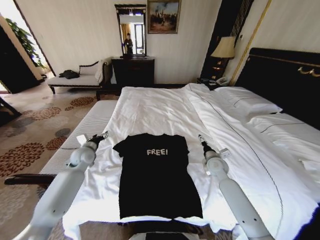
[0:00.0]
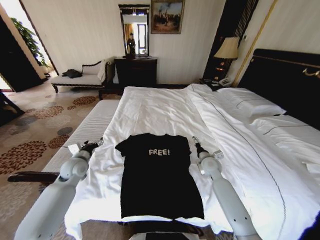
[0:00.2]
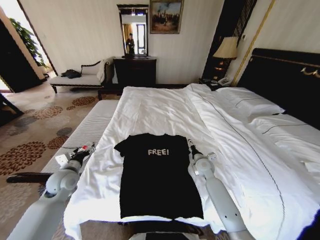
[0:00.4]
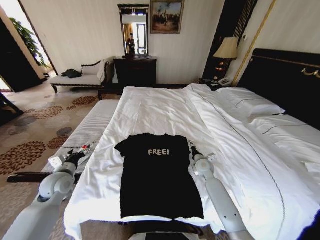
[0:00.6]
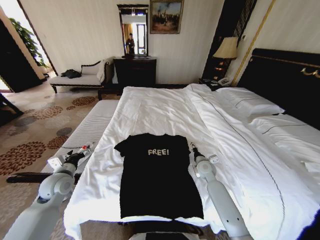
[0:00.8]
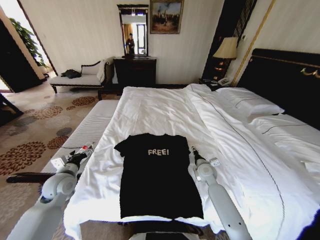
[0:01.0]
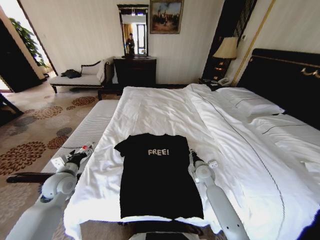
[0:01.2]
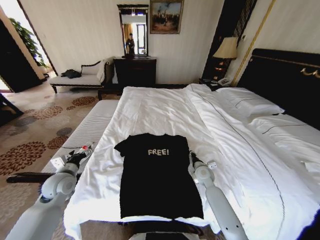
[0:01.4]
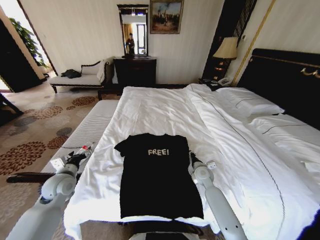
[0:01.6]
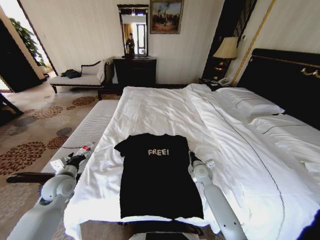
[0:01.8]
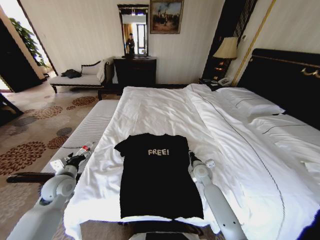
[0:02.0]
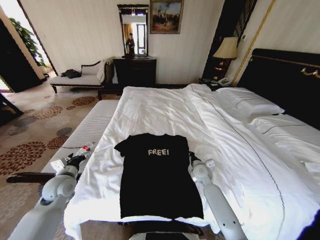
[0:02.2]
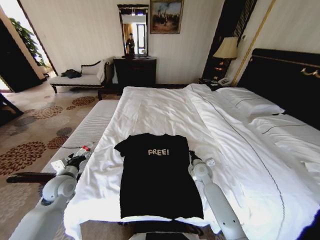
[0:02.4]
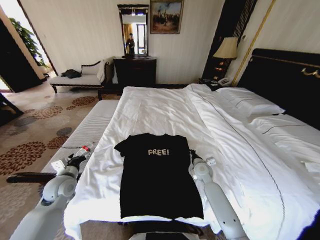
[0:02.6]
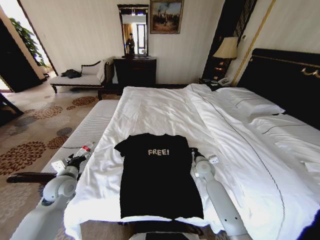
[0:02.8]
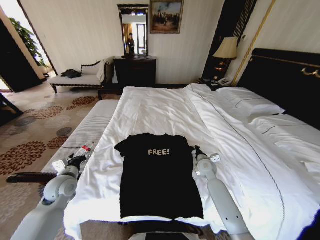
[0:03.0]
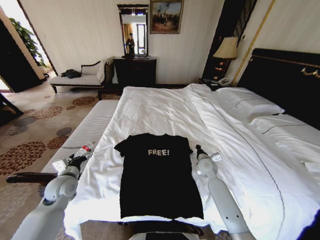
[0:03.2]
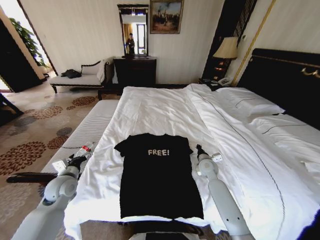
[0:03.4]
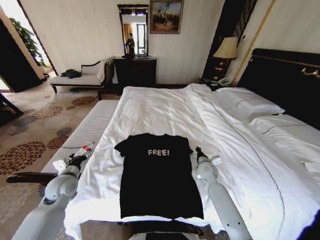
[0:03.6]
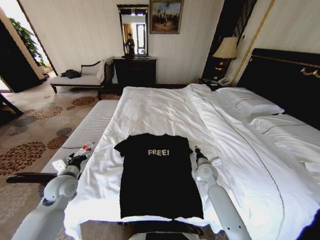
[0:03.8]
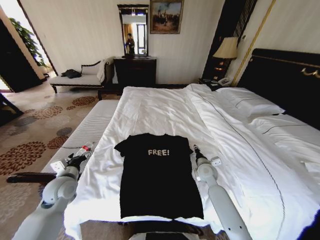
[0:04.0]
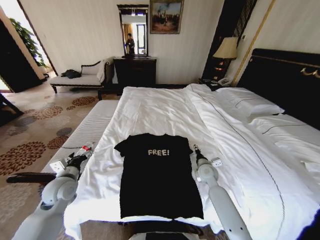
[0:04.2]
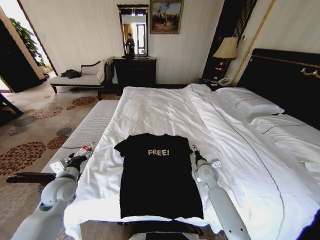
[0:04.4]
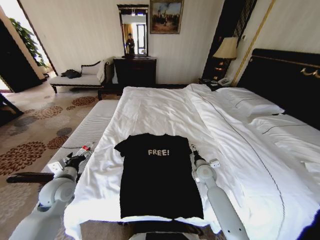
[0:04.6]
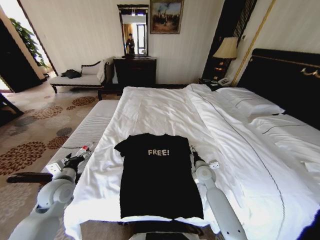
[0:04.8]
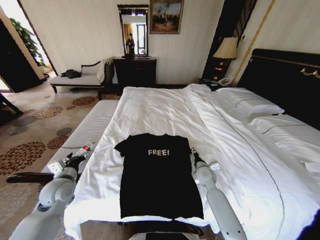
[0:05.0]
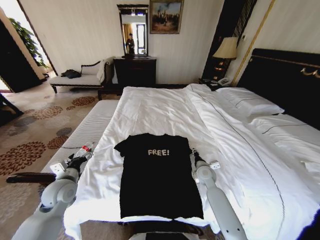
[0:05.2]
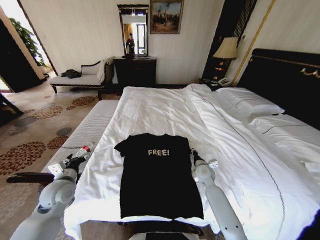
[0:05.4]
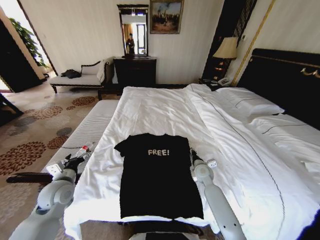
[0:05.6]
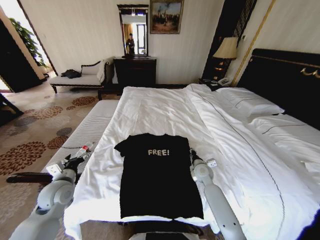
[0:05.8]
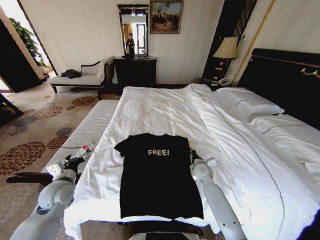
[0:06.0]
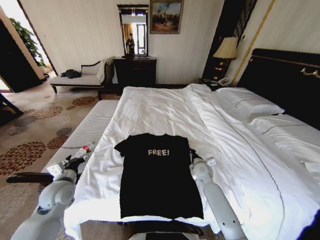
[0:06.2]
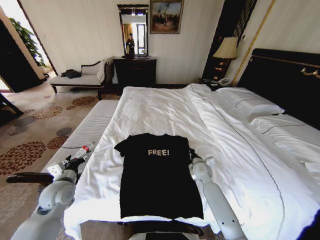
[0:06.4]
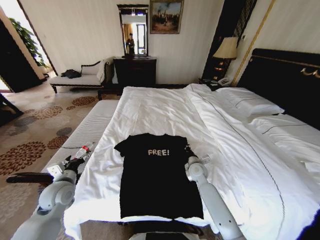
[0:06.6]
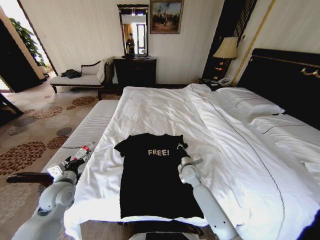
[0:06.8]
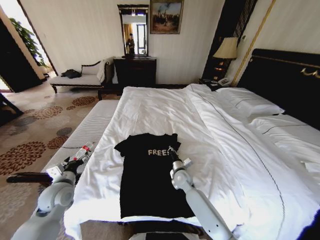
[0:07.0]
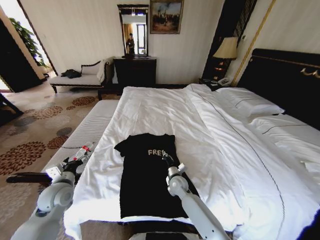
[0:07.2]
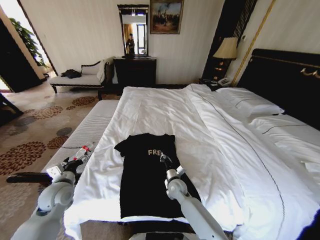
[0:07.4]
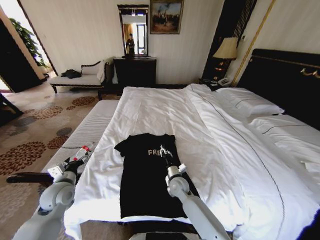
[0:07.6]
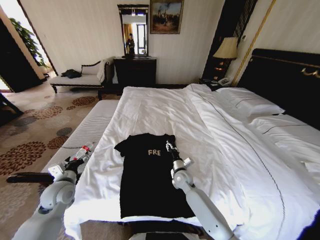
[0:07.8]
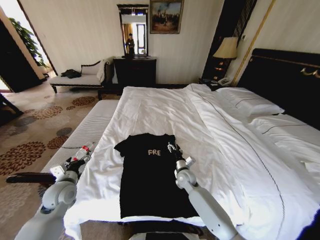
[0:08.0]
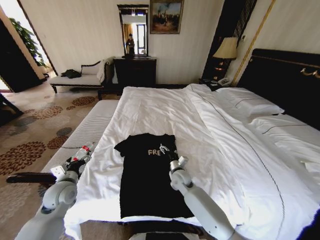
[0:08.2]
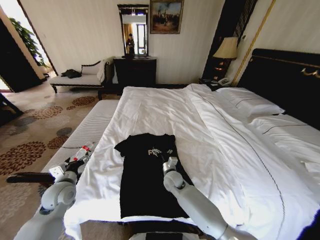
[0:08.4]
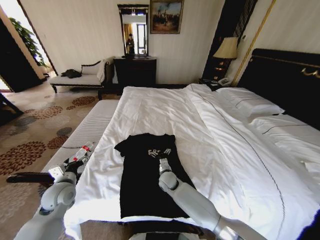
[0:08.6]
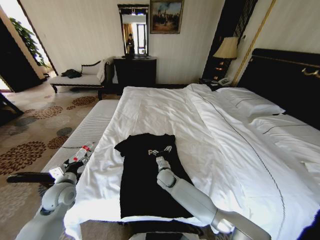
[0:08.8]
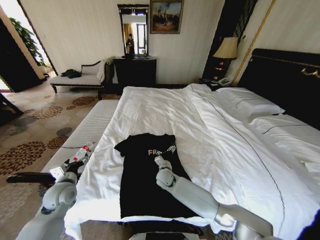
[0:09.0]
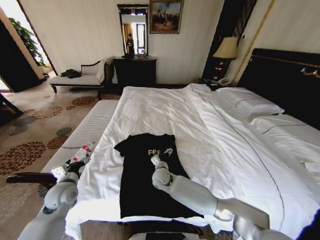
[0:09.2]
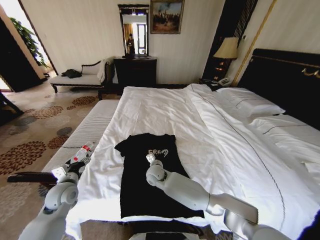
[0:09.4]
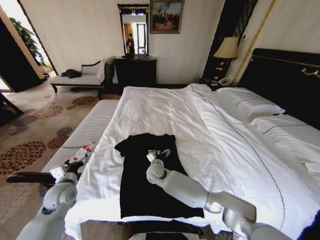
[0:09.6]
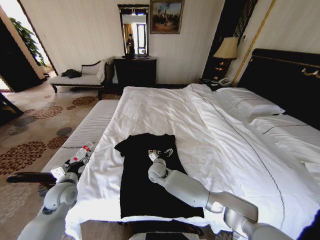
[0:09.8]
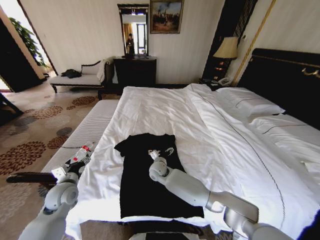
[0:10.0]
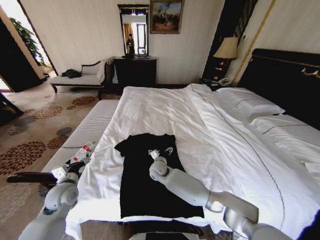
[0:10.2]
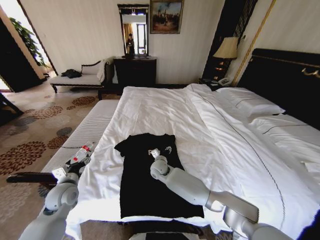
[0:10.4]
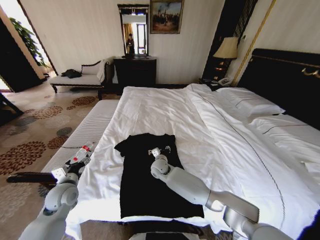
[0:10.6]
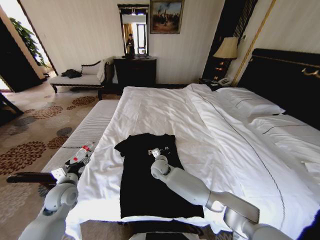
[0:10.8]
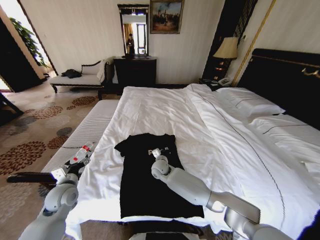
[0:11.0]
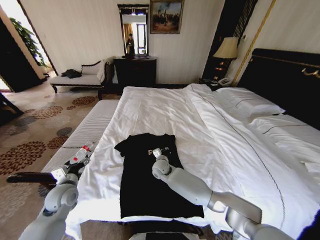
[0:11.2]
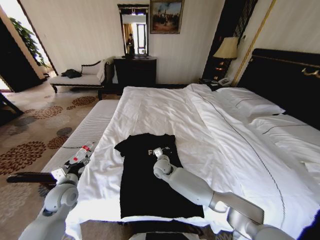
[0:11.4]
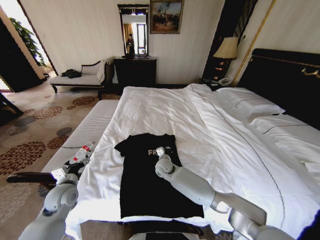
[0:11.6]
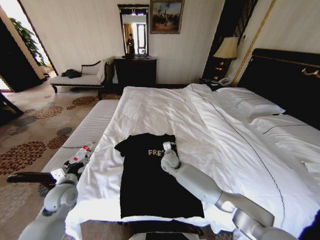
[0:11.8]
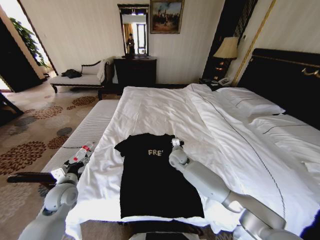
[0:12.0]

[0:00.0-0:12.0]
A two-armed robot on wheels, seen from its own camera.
Task of the whole recording: Fold the clothes on the bed.
0:00.0 to 0:01.6: The right gripper heads downward and to the left, covering approximately 10 cm, and closes. The left gripper travels backward by roughly 10 cm.
0:01.6 to 0:03.0: The right gripper closes its fingers.
0:03.0 to 0:04.4: The right gripper opens its fingers.
0:04.4 to 0:06.0: The right gripper closes up.
0:06.0 to 0:07.6: The right gripper heads to the left and backward, covering approximately 15 cm.
0:07.6 to 0:09.0: The right gripper goes approximately 5 cm to the left, and opens its fingers.
0:09.0 to 0:10.4: The right gripper moves some 5 cm.
0:10.4 to 0:12.0: The right gripper moves to the right, about 10 cm, and closes its fingers.

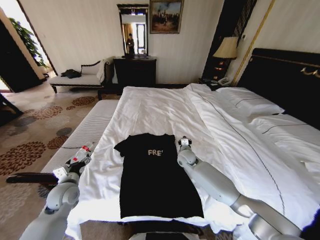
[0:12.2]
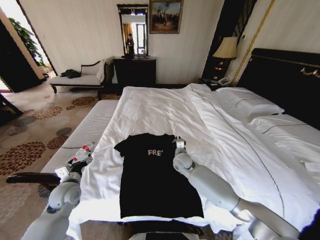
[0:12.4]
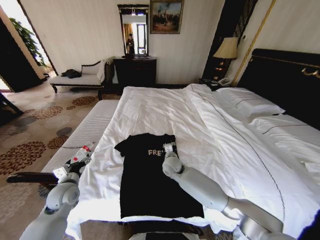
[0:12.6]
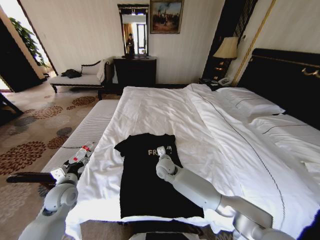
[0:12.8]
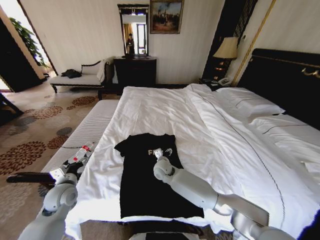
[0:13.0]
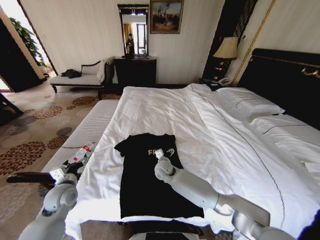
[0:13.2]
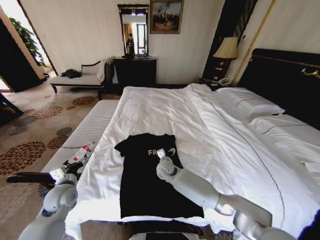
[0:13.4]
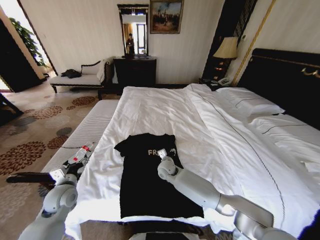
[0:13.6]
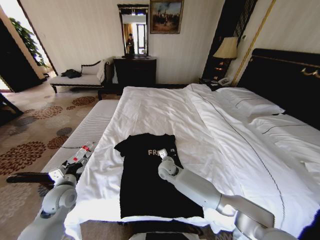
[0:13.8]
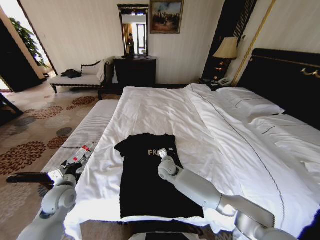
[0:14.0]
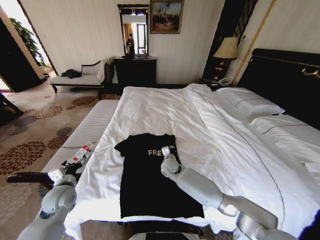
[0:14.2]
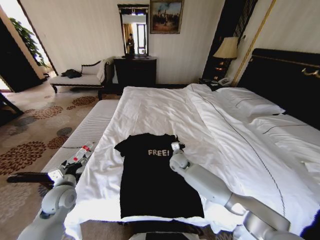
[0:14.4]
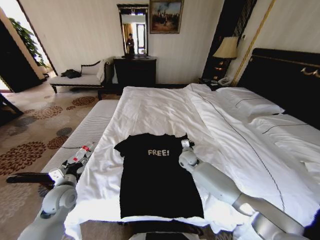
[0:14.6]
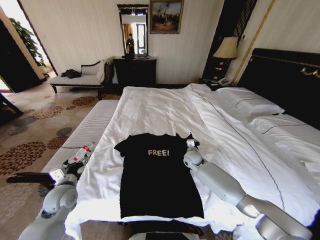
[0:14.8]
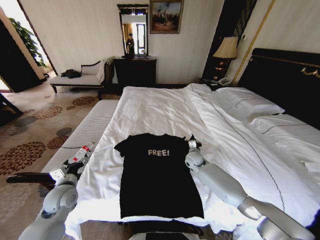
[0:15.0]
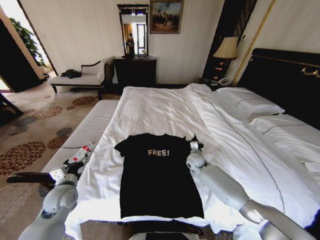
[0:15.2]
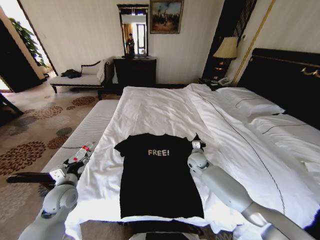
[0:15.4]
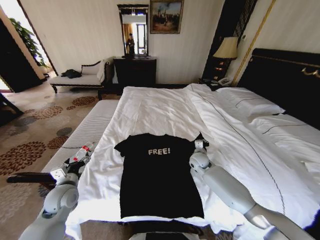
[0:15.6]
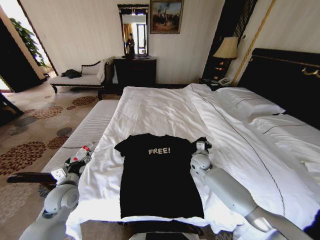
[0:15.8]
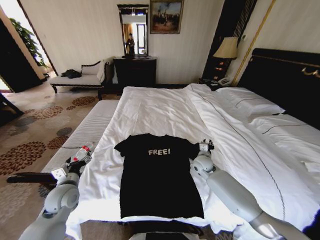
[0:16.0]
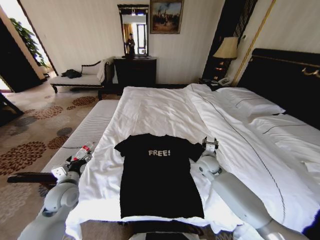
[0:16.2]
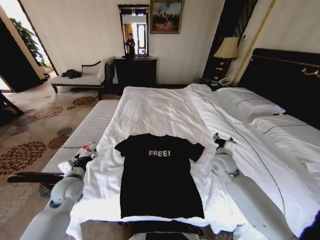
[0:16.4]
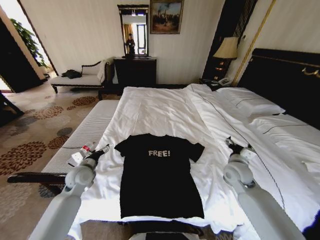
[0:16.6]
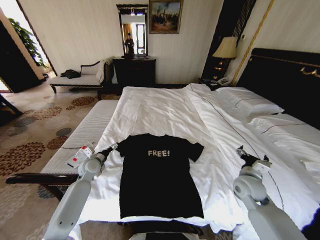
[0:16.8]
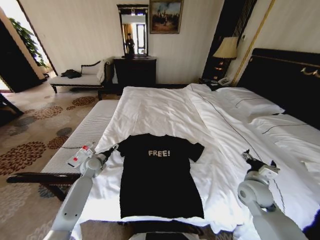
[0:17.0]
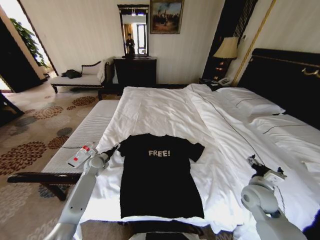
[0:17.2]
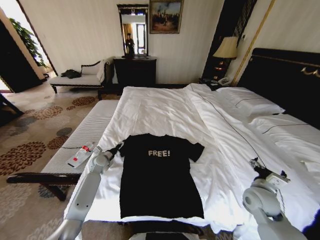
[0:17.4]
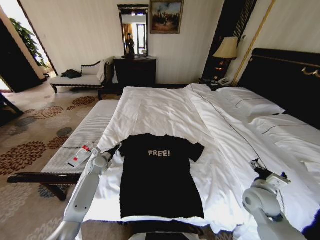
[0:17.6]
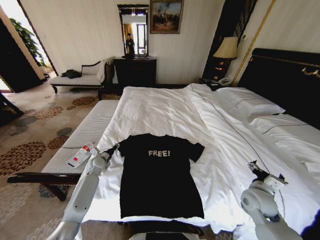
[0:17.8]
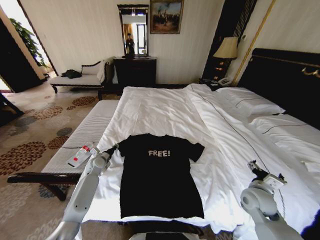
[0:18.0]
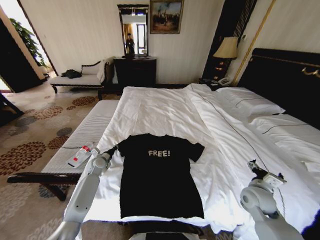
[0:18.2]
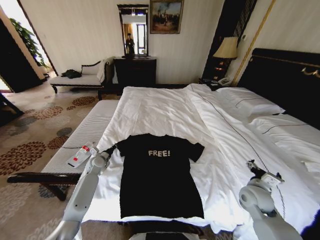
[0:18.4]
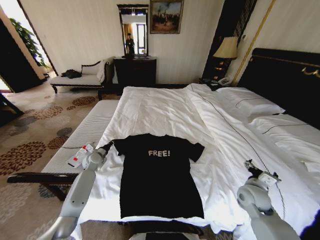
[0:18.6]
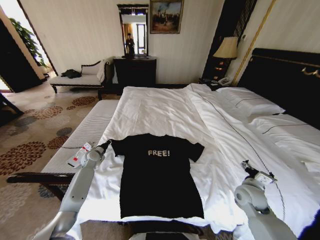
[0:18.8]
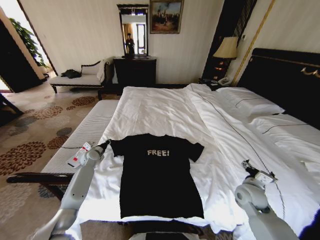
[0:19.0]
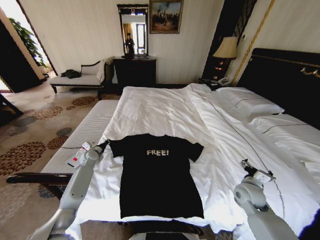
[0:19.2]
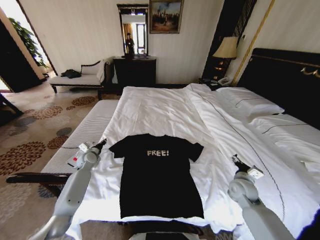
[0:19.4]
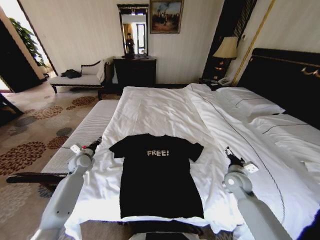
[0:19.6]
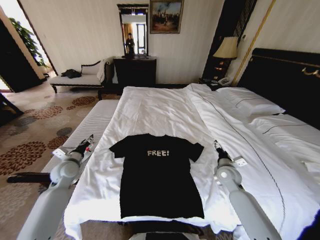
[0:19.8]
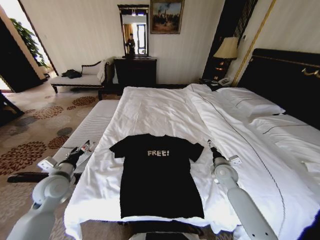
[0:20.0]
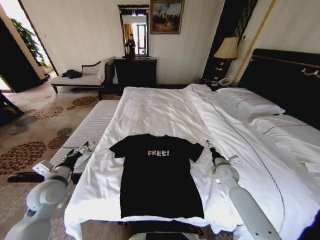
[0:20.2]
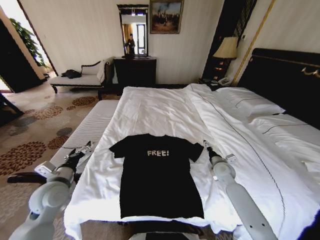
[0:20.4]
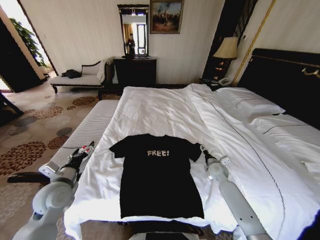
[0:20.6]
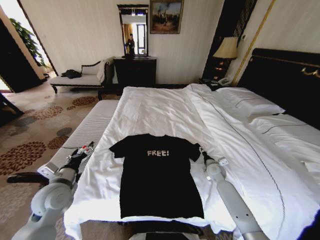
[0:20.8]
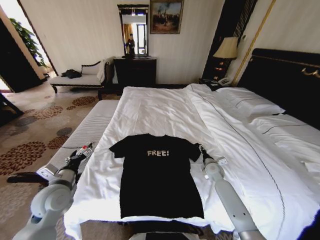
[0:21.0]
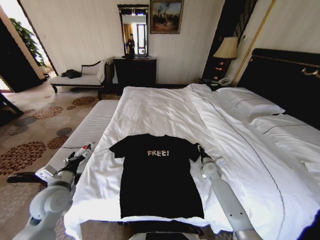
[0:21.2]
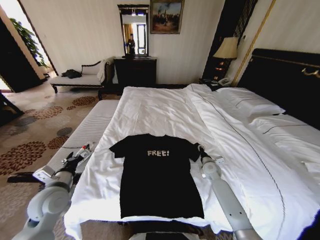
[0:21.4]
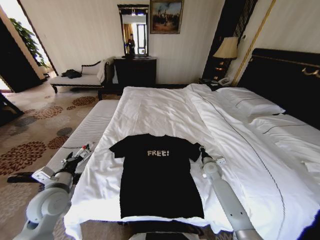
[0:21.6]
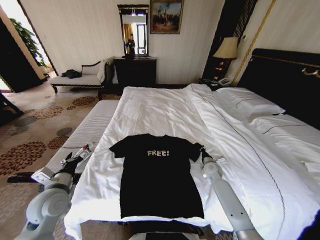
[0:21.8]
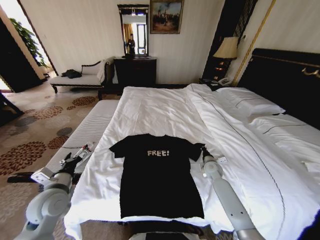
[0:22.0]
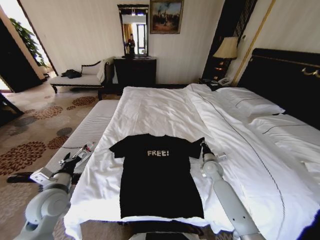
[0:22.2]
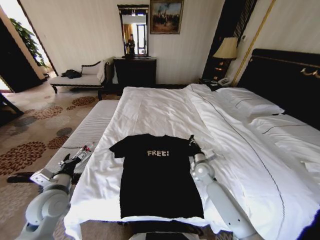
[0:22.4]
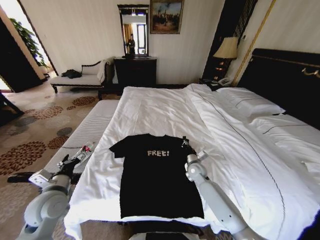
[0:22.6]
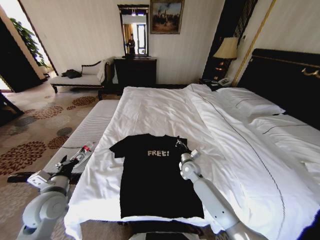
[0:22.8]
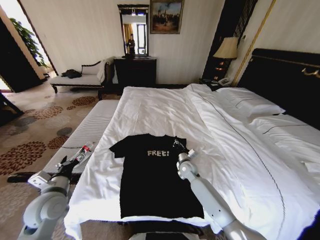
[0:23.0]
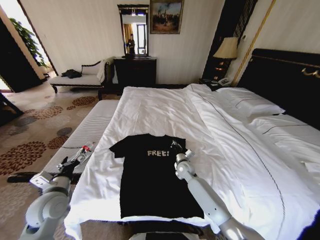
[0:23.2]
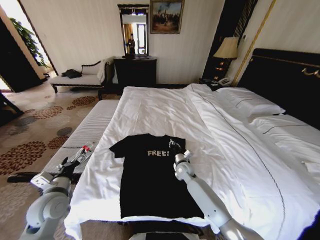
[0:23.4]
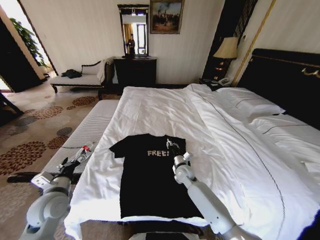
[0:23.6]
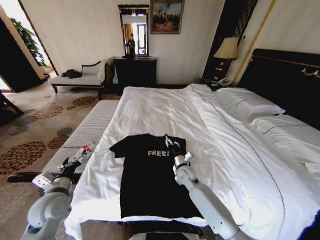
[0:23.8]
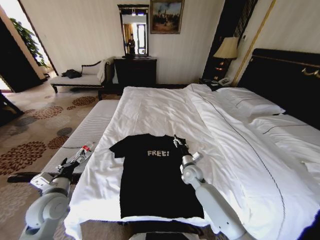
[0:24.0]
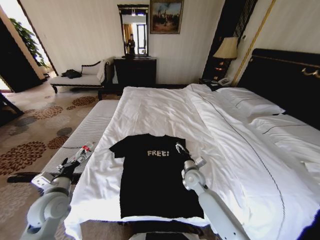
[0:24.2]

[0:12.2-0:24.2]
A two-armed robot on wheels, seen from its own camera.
Task of the whole recording: Fold the clothes on the bed.
0:12.2 to 0:13.8: The right gripper travels to the left by some 10 cm, and opens its fingers.
0:13.8 to 0:15.2: The right gripper heads to the right, covering about 15 cm, and closes its fingers.
0:15.2 to 0:16.6: The left gripper heads forward, covering approximately 5 cm. Meanwhile the right gripper moves backward, to the right and upward, some 20 cm, and opens its fingers.
0:16.6 to 0:18.2: The right gripper is displaced backward and to the right by roughly 10 cm. The left gripper moves forward and downward, about 15 cm, and closes up.
0:18.2 to 0:19.8: The right gripper goes some 10 cm forward. The left gripper travels upward, backward and to the left by about 15 cm, and opens its fingers.
0:19.8 to 0:21.2: The left gripper is displaced backward by some 10 cm, and opens its fingers. The right gripper is displaced downward and forward by approximately 10 cm.
0:21.2 to 0:22.6: The right gripper shifts roughly 10 cm to the left, and closes up.
0:22.6 to 0:24.2: The right gripper goes some 5 cm backward, and opens up.
